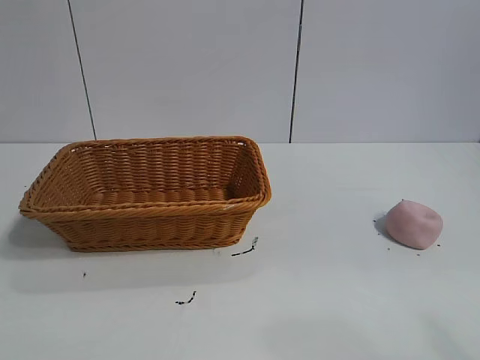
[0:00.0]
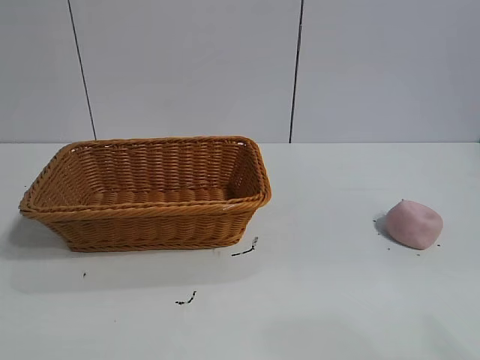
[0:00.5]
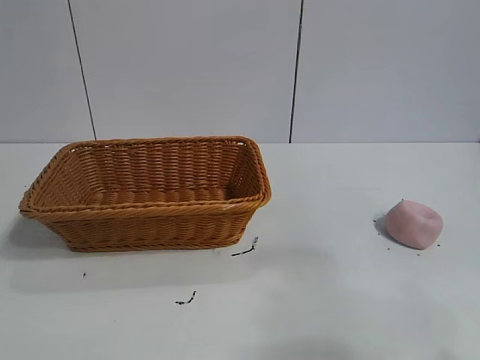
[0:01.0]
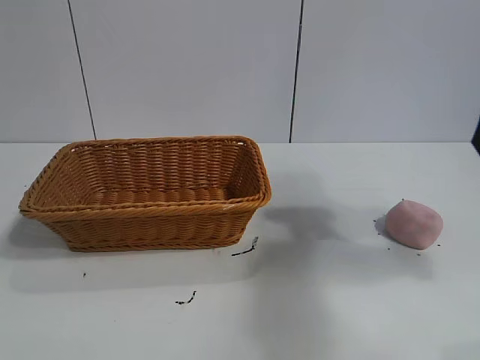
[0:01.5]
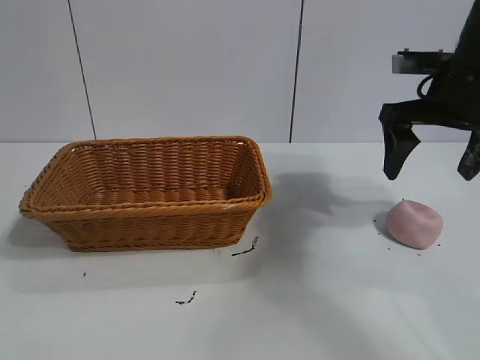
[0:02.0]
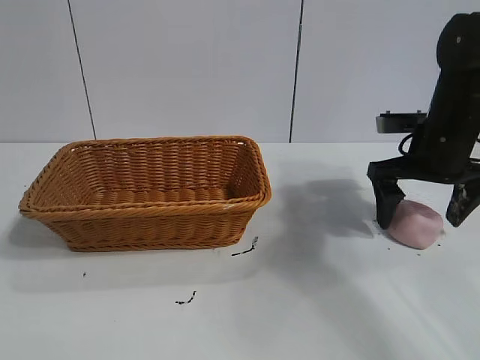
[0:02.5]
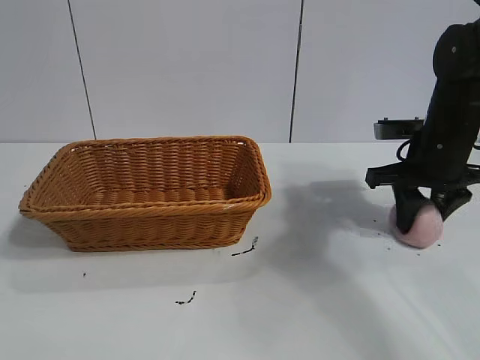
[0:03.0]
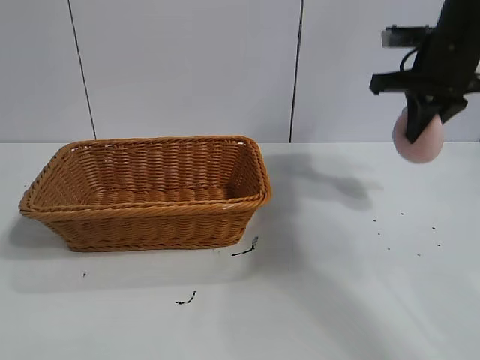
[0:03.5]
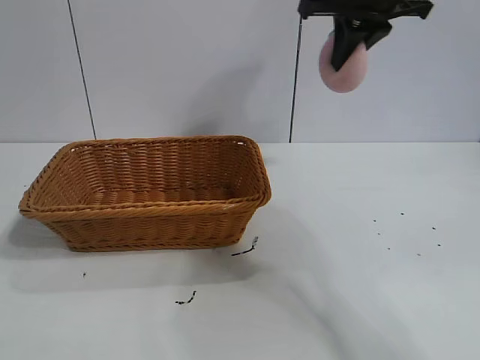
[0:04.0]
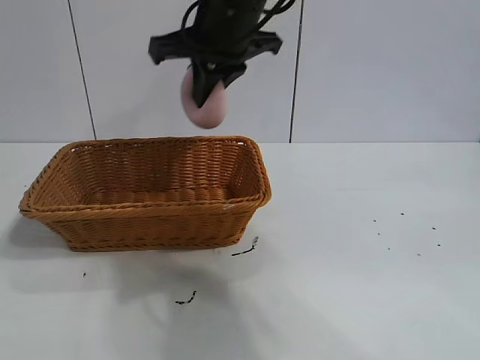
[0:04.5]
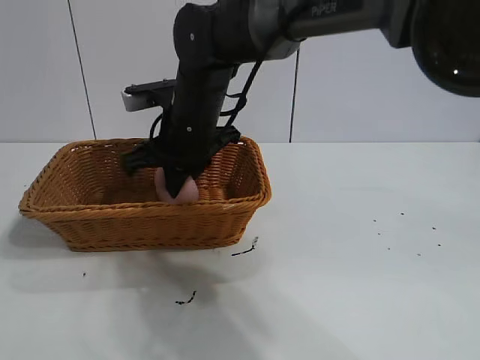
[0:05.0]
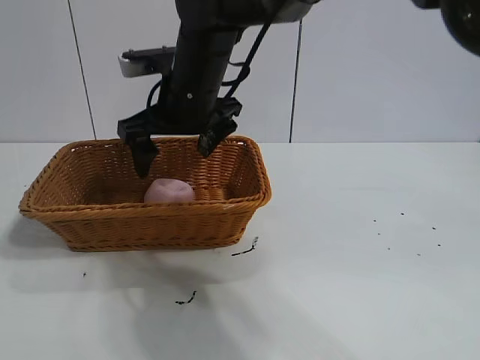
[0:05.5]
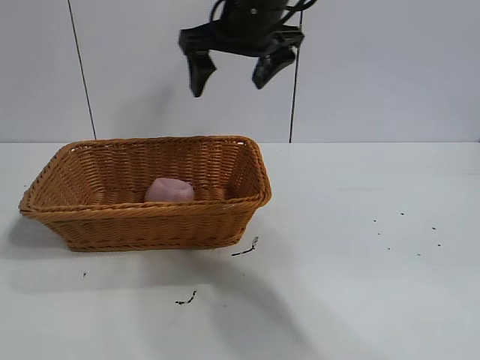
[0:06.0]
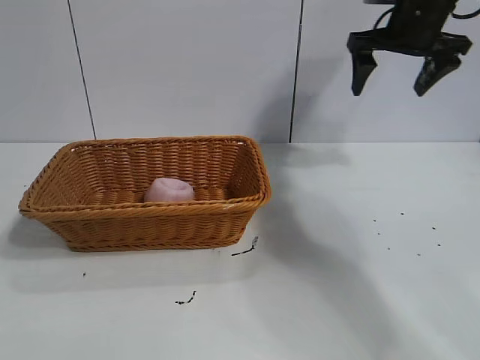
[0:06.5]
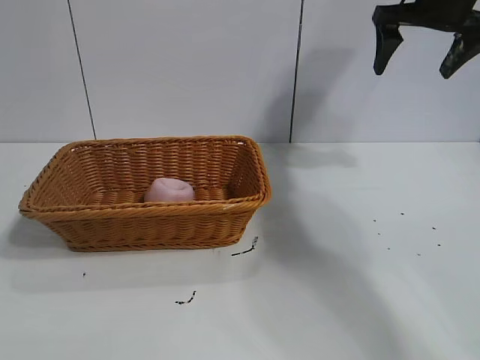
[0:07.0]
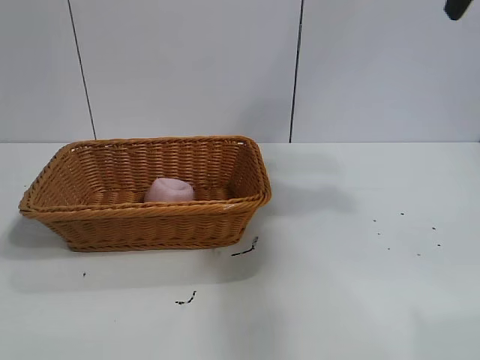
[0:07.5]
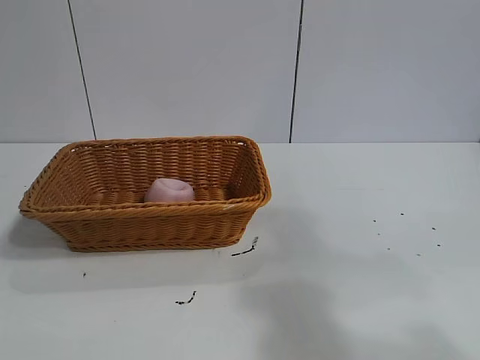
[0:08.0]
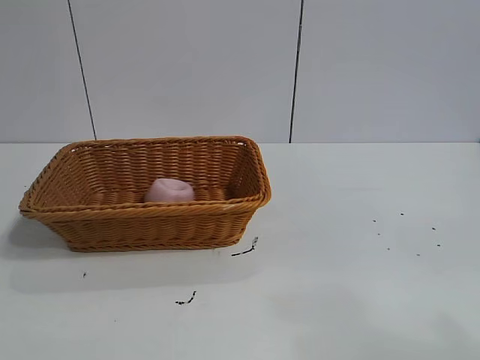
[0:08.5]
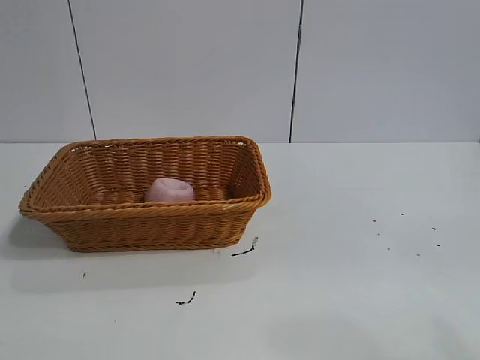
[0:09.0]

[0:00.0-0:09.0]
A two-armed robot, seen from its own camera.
Task of the whole recording: pick up the peach and put it into the basket.
Step, 0:01.0 to 0:03.0: Grasp the peach with right gripper.
Step, 0:03.5 to 0:05.0: Place the peach in the basket with right gripper.

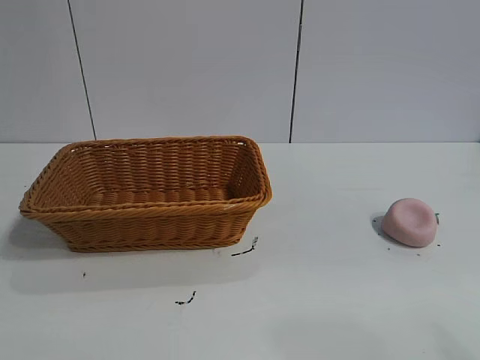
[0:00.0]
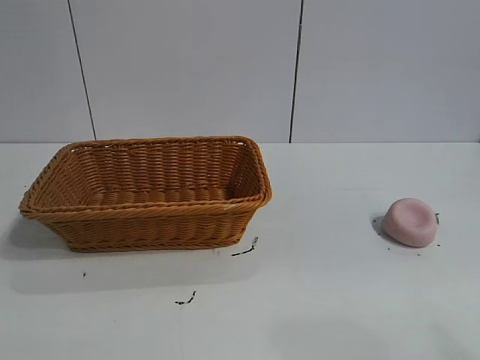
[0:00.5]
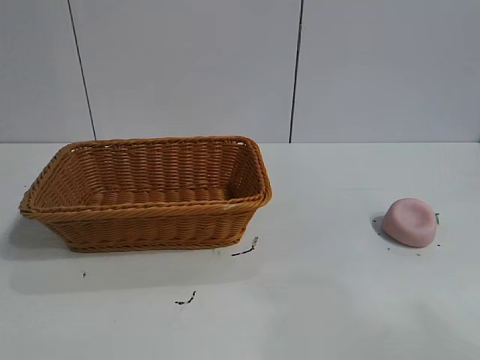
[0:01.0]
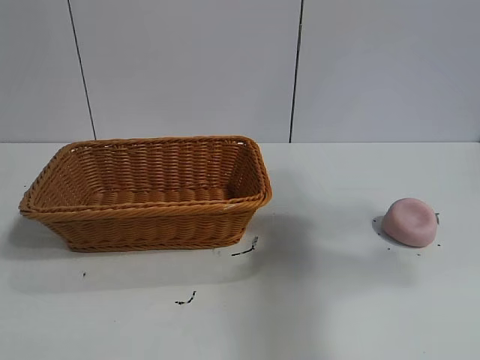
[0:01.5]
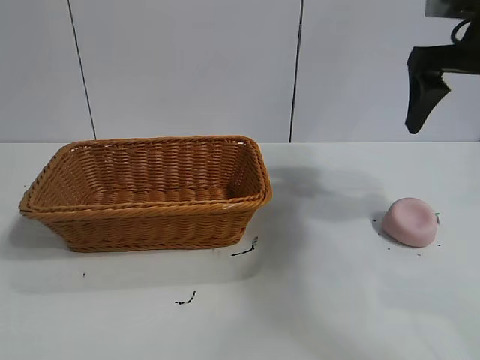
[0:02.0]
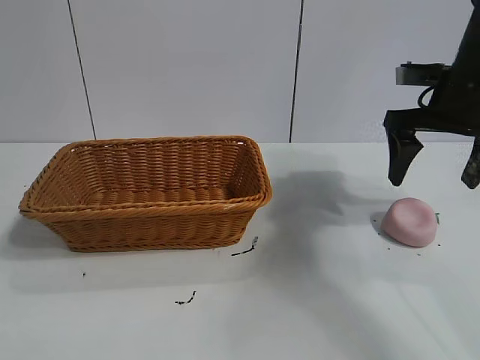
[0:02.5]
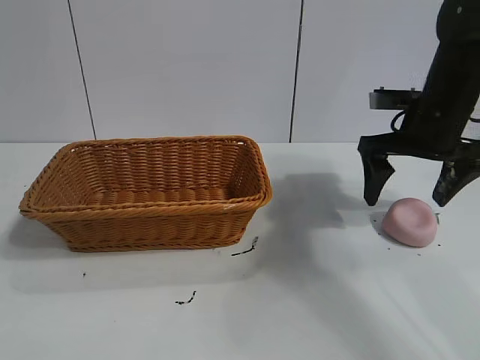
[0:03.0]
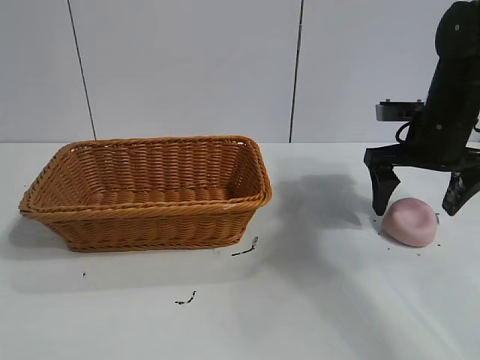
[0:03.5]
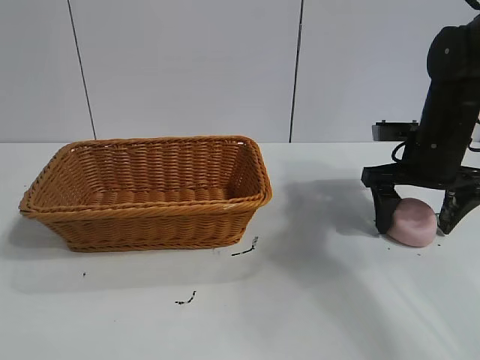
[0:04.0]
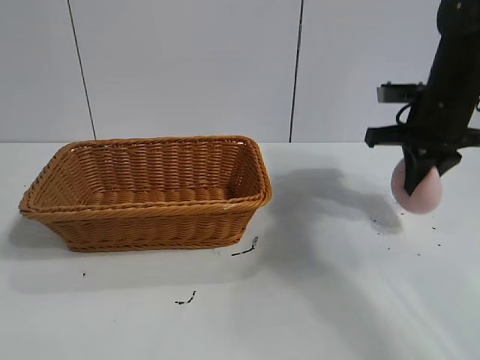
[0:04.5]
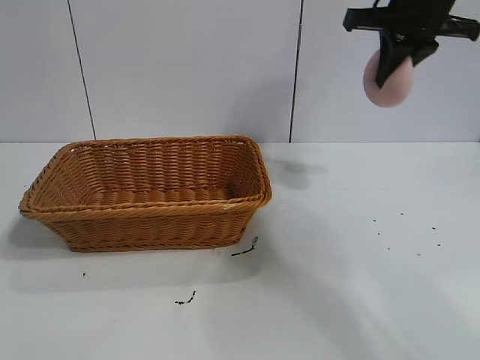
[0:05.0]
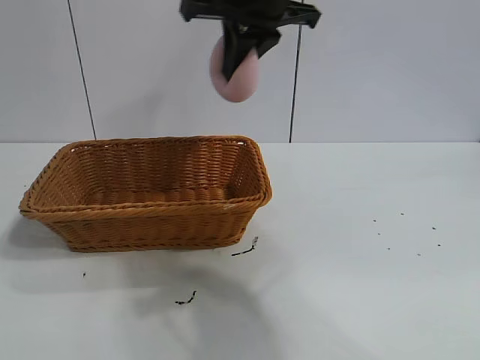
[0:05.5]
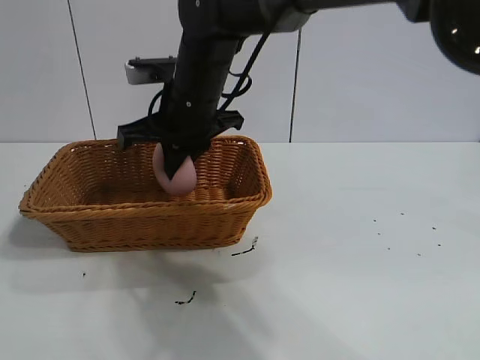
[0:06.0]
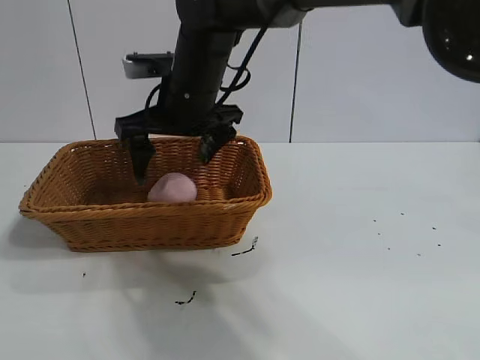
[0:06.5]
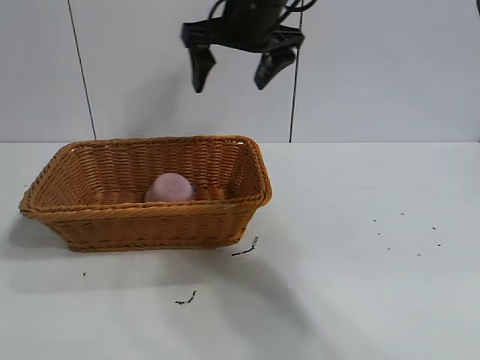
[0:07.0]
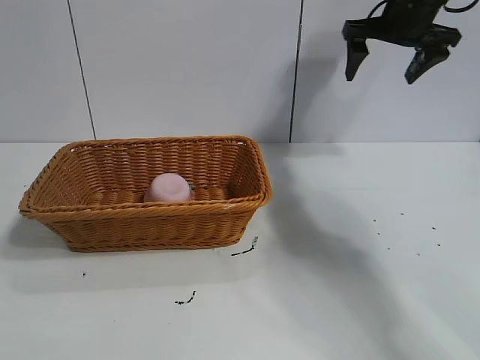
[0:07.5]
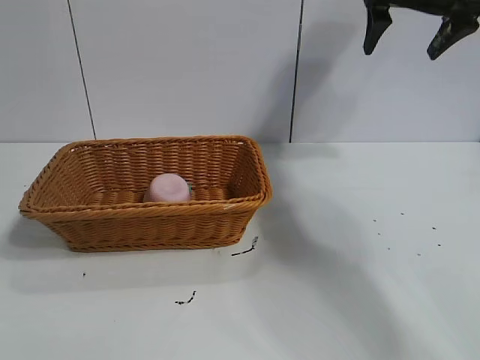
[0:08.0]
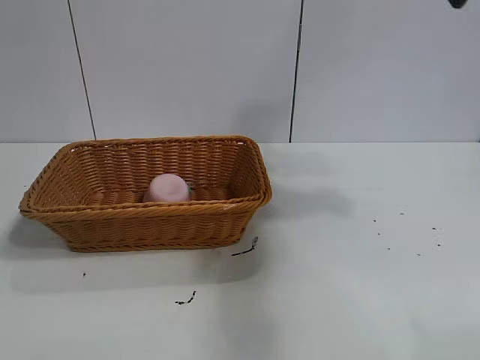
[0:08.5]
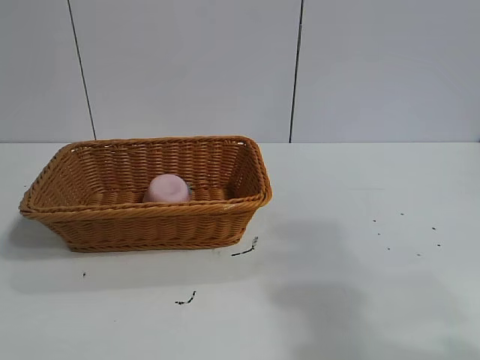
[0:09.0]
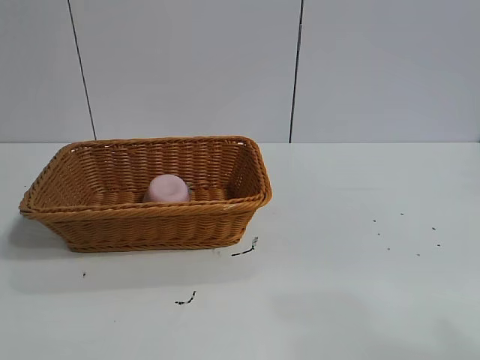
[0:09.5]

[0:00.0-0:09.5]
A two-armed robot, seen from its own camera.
Task of the whole recording: pick up the peach and put it into the basket.
Step, 0:01.0 to 0:04.0: Grasp the peach with right gripper.
Step, 0:04.5 to 0:06.0: Place the peach in the basket with right gripper.

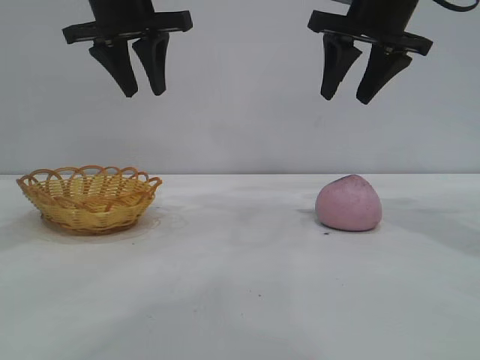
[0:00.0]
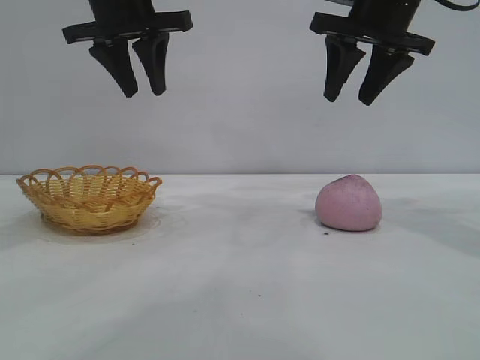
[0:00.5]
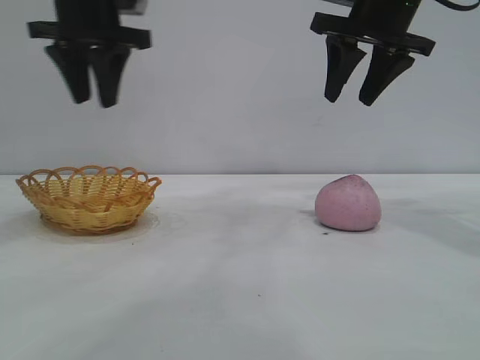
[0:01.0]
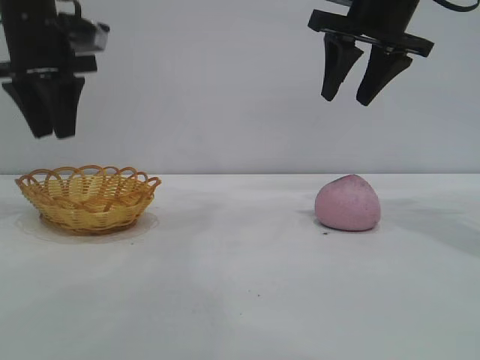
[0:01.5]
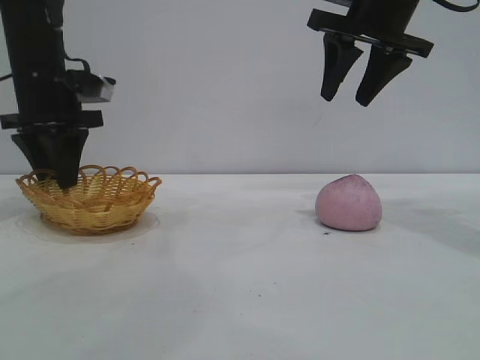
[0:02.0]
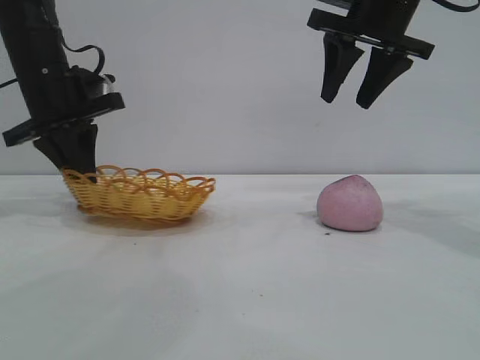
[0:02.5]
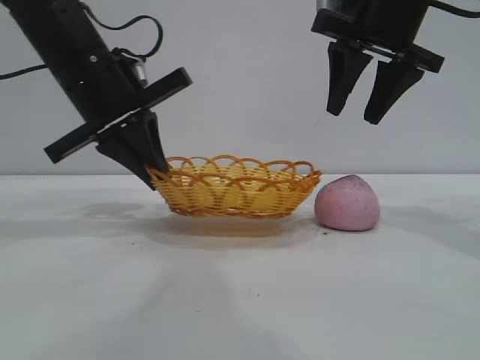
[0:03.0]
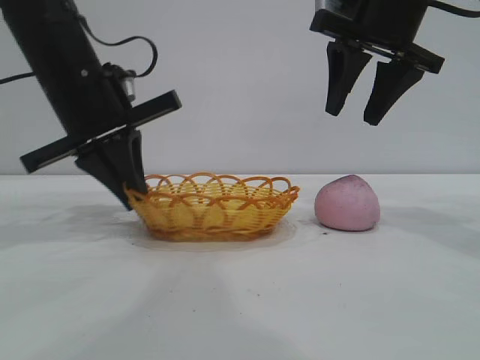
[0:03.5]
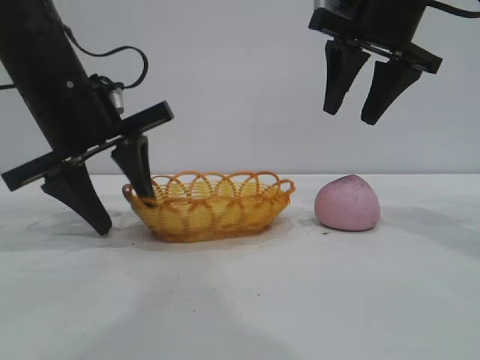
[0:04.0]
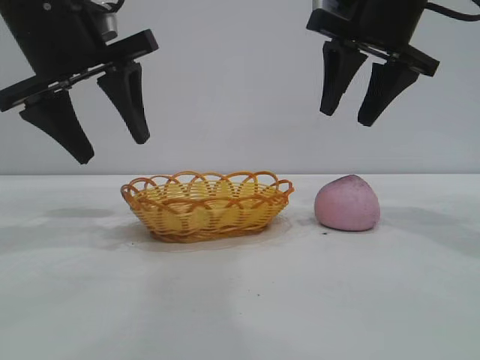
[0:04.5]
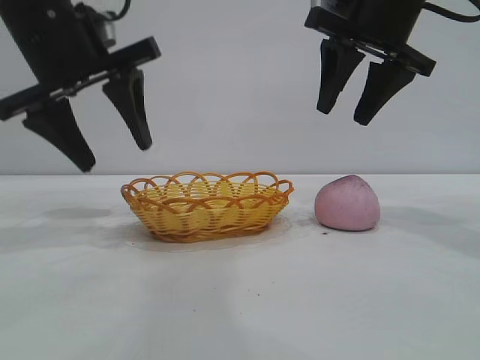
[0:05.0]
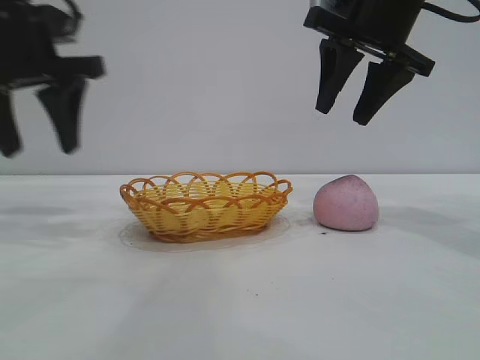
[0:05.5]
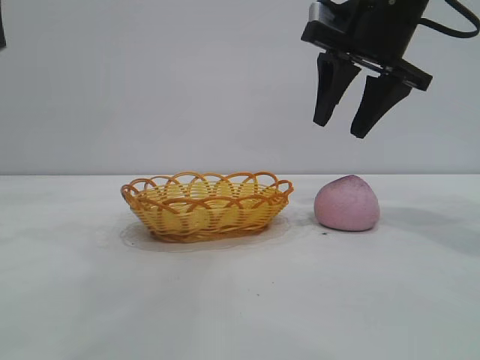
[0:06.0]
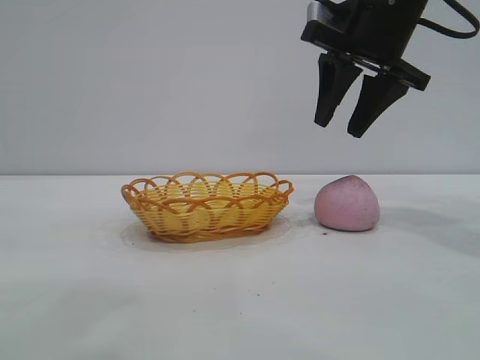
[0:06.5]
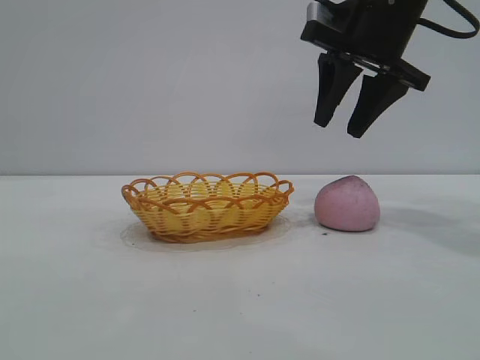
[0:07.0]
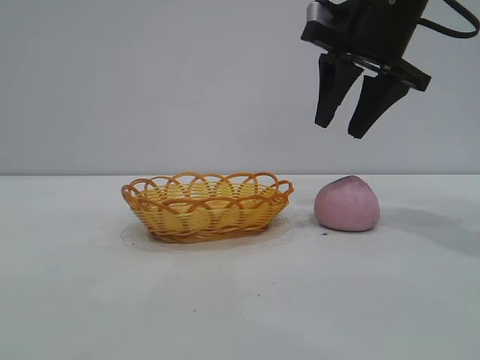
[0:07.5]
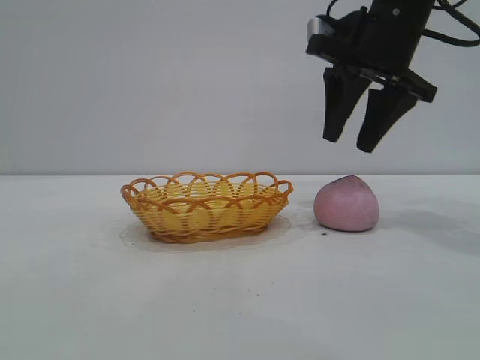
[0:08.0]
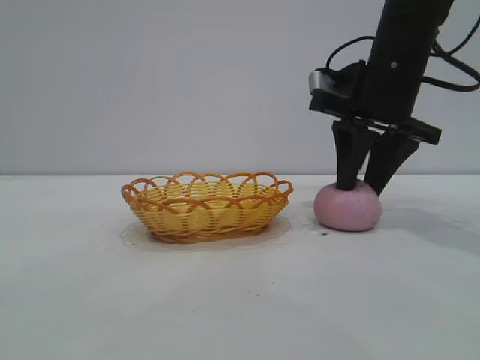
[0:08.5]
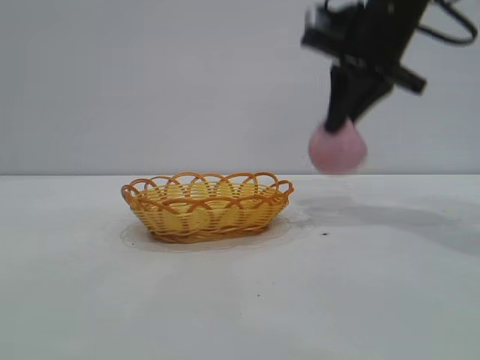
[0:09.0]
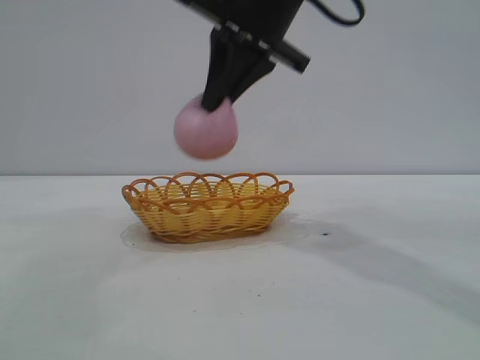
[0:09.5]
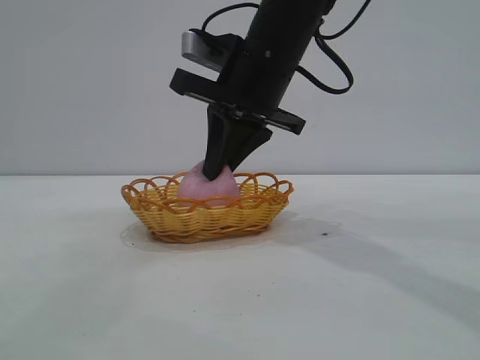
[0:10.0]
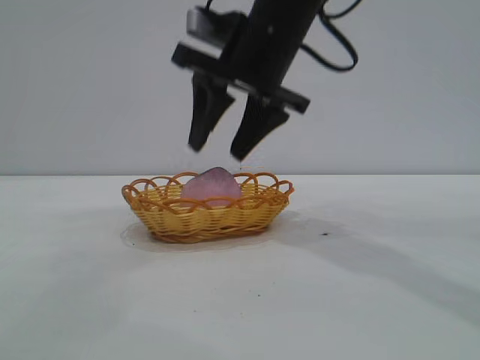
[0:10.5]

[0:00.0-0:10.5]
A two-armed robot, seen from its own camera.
Task of the whole recording: pick up the peach and put it into the basket.
Step, 0:00.0 to 0:04.0: Move the basket to the center of view.
Step, 0:04.5 to 0:08.5: Pick up the peach.
